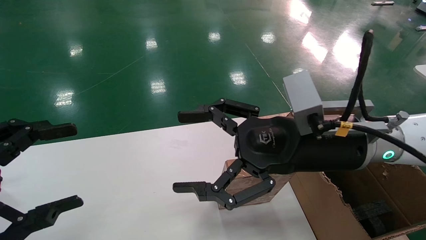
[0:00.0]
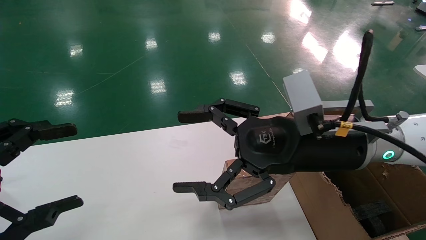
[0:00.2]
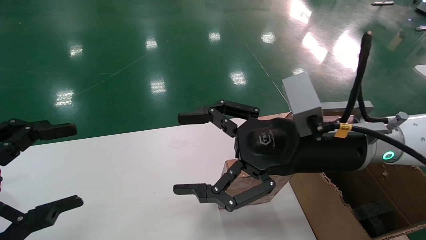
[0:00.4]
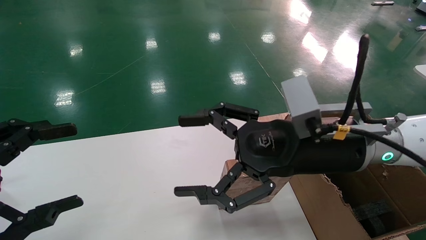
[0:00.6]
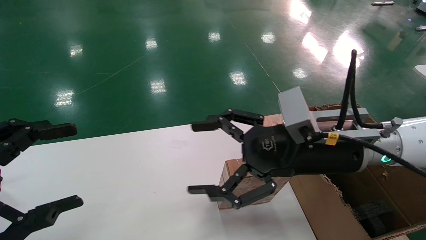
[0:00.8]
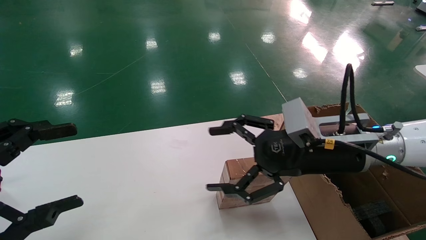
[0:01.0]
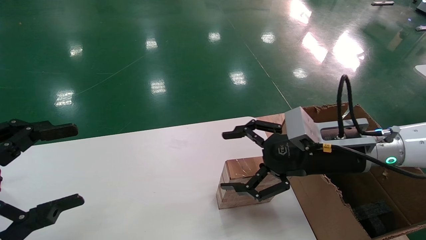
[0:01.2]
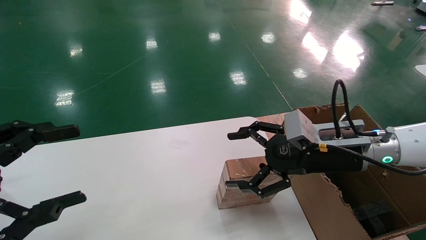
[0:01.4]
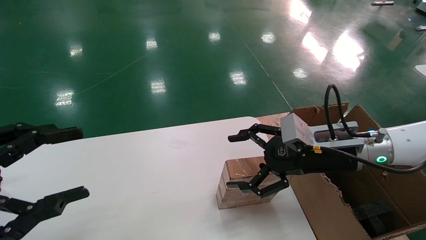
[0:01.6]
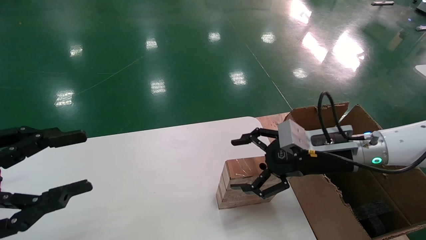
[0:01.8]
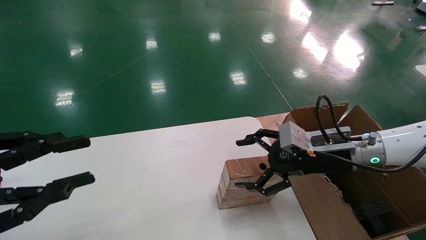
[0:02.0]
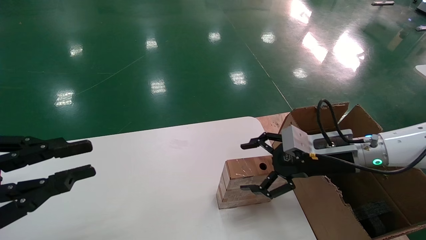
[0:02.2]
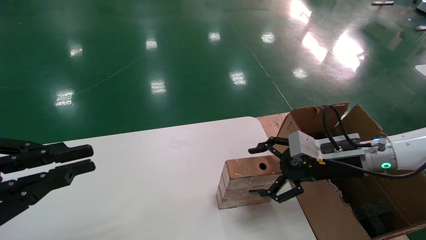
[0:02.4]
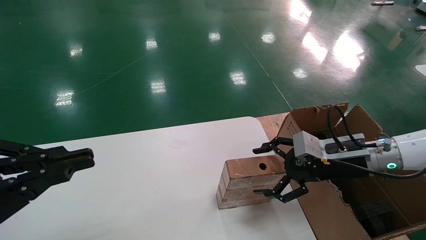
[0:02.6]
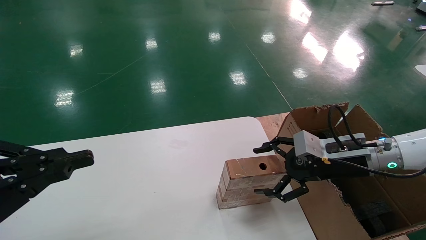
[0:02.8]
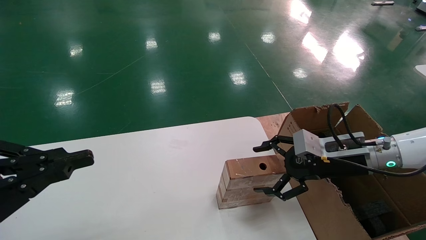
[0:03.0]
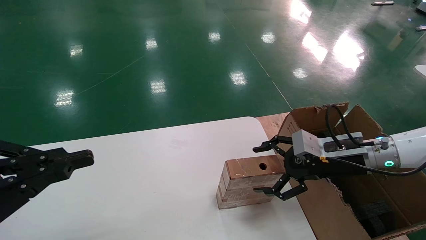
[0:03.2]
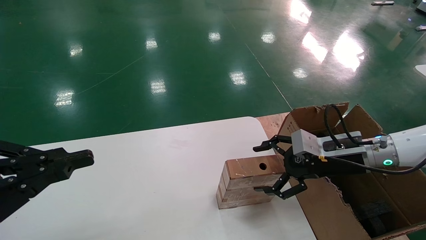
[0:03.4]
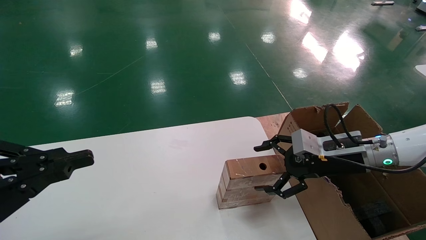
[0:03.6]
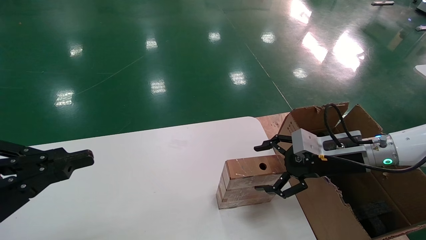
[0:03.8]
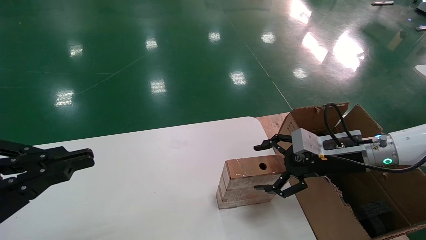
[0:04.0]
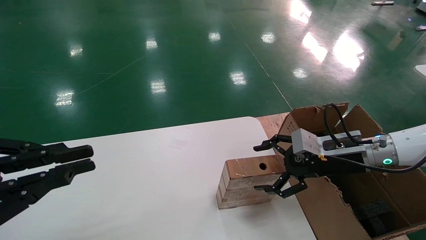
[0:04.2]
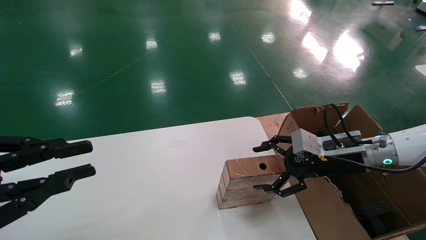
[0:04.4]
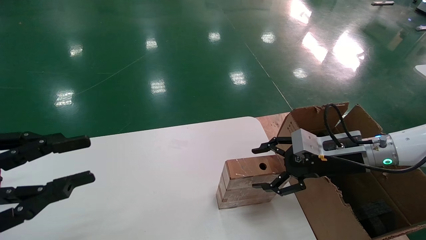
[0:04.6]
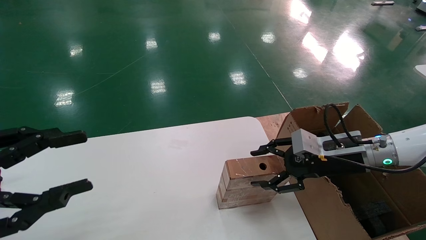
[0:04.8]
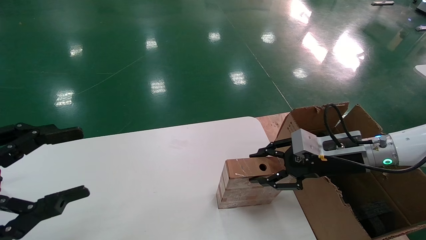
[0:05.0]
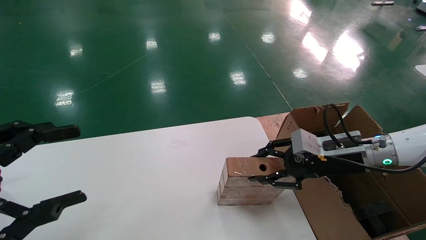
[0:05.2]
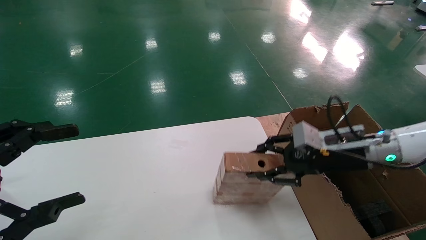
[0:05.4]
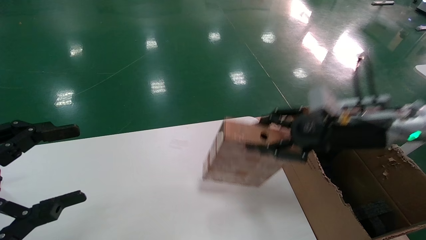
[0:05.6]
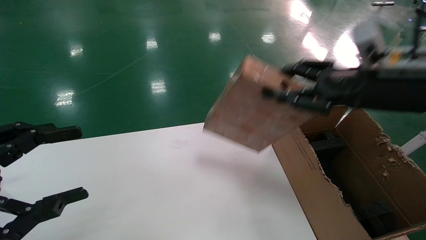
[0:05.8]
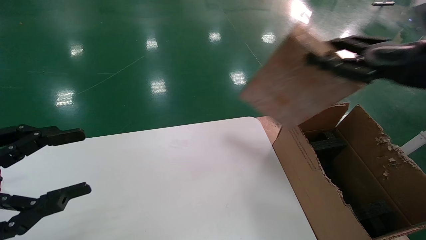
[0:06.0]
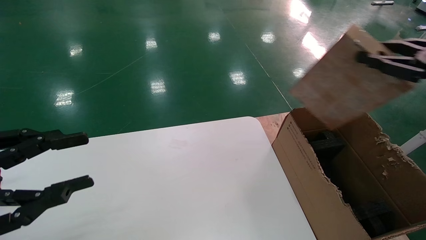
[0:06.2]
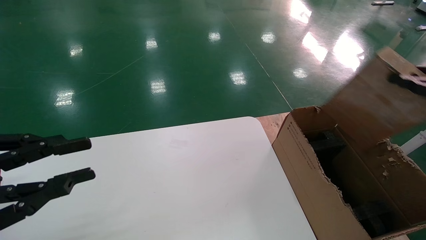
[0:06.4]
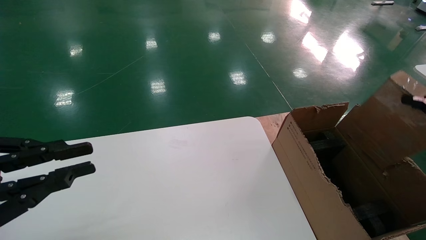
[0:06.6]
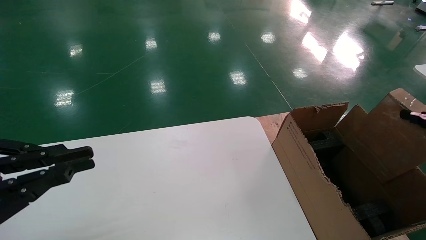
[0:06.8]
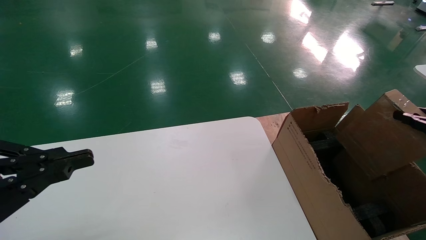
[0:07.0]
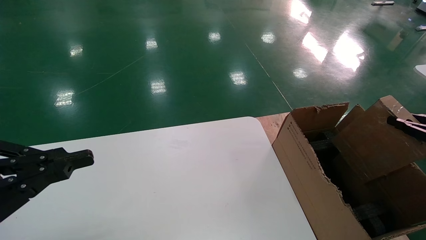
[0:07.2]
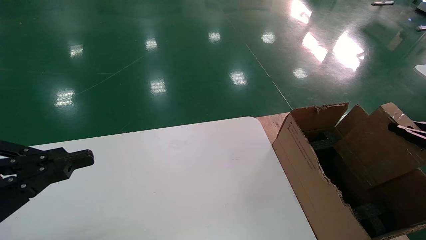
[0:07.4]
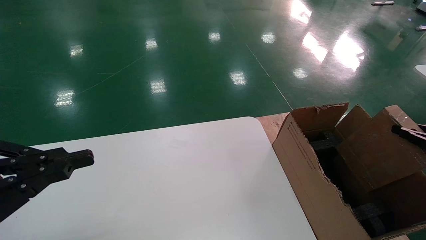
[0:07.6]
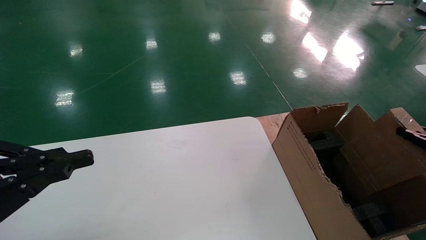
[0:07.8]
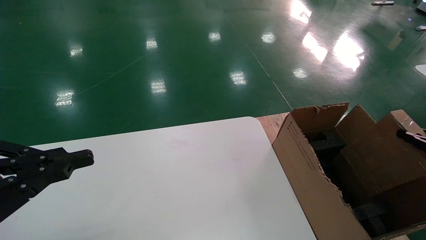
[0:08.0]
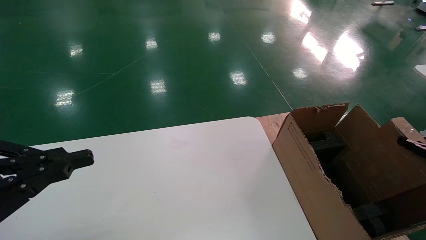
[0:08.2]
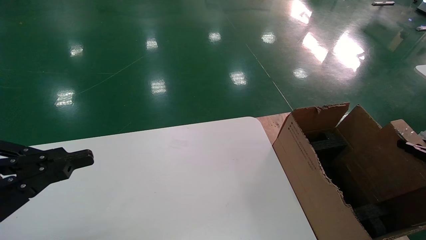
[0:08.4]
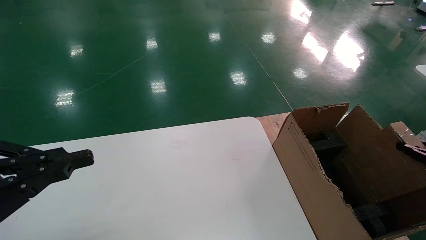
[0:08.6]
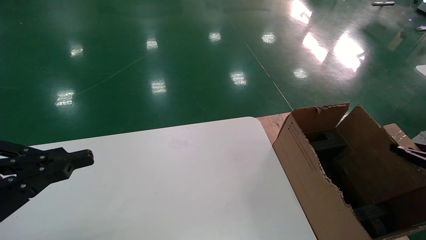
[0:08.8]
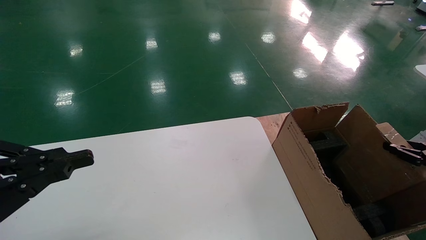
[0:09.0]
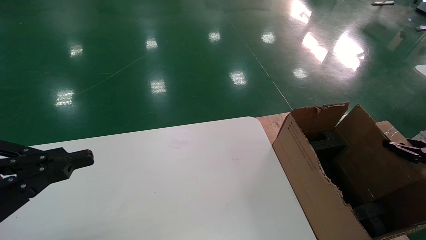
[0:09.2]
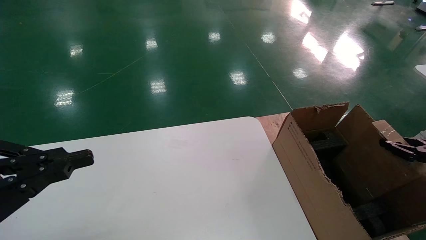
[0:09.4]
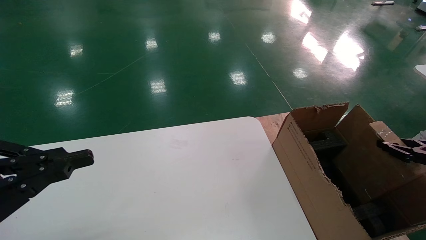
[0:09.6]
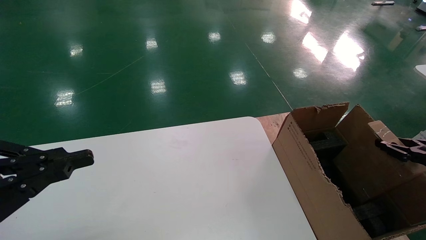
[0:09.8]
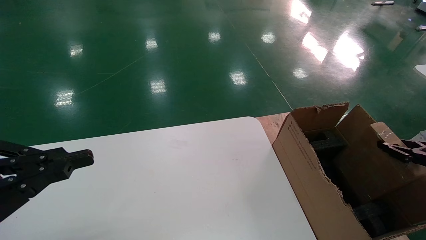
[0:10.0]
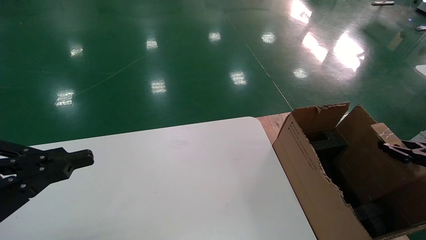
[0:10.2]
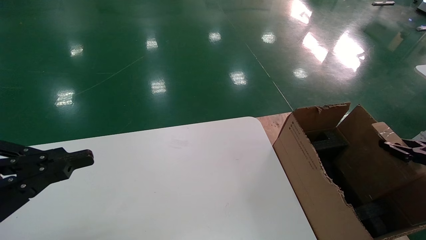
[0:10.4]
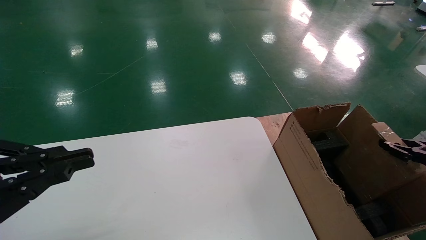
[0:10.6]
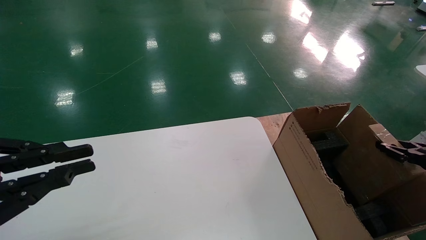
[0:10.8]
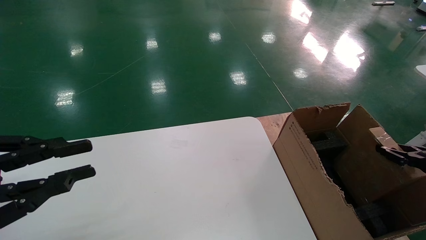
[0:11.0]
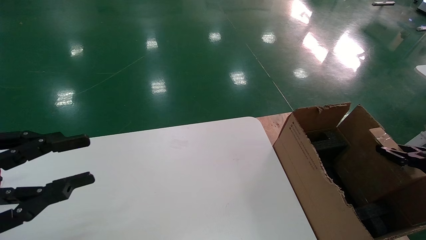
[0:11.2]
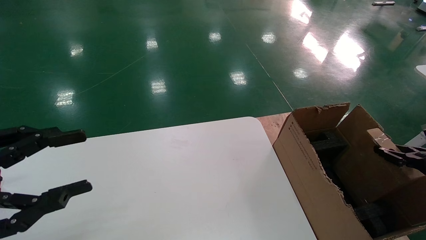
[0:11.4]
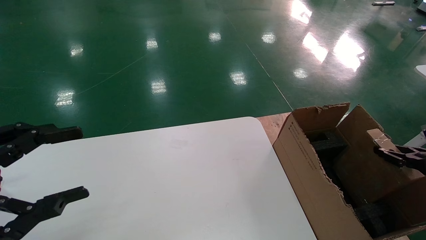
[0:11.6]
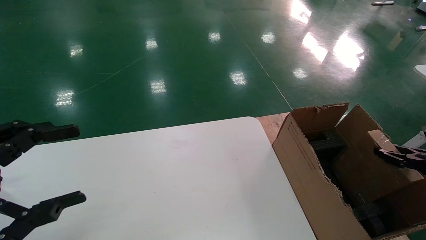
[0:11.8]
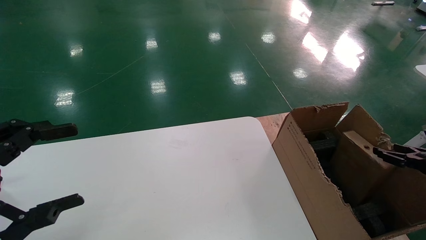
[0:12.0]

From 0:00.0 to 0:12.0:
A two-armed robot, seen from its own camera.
Task of the whole recording: put the box on the table into the big box.
Step, from 0:01.2 to 0:05.2: Pick up the mouse and the power cord paper box.
From 0:00.0 to 0:01.6: The right gripper moves to the right, downward and forward, some 10 cm.
From 0:01.6 to 0:03.0: The right gripper moves to the right, approximately 5 cm; the left gripper closes up.
From 0:03.0 to 0:04.4: The two grippers keep their place.
From 0:04.4 to 0:06.0: The left gripper opens its fingers, while the right gripper goes some 20 cm upward, to the right and backward, and closes its fingers.
From 0:06.0 to 0:07.6: The left gripper closes up; the right gripper shifts roughly 25 cm to the right and downward.
From 0:07.6 to 0:10.4: There are only small adjustments of the grippers.
From 0:10.4 to 0:12.0: The left gripper opens its fingers.

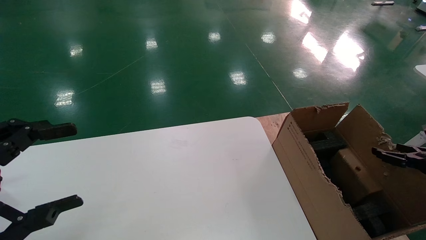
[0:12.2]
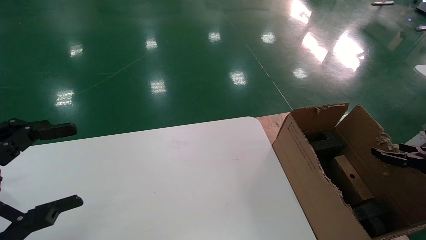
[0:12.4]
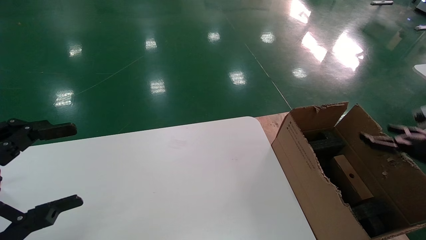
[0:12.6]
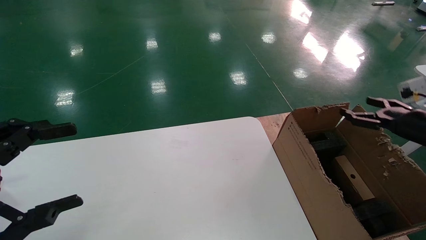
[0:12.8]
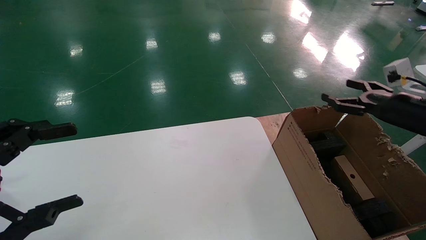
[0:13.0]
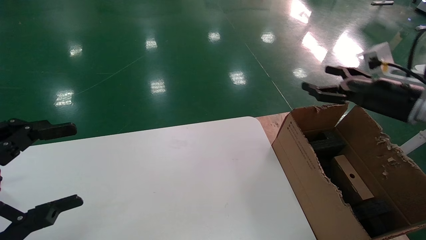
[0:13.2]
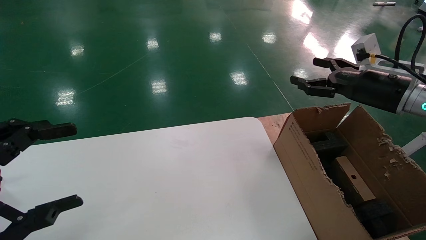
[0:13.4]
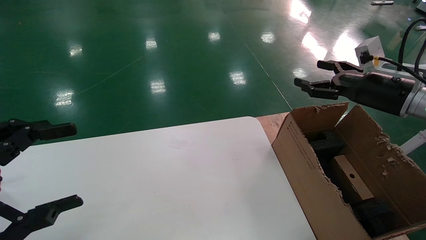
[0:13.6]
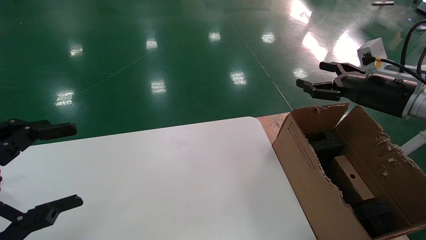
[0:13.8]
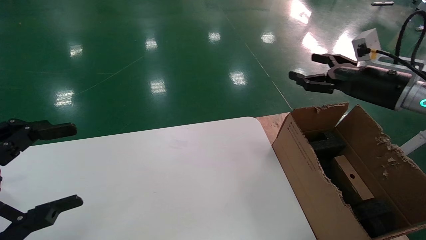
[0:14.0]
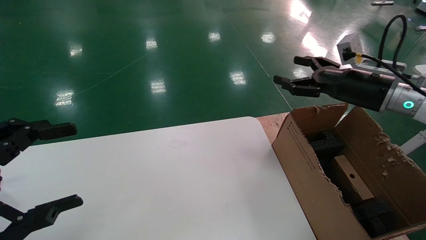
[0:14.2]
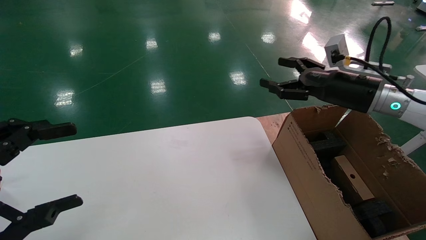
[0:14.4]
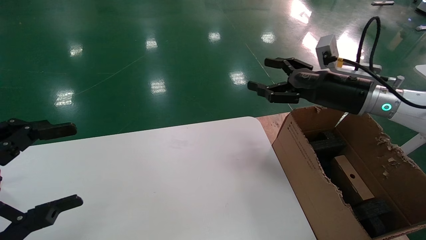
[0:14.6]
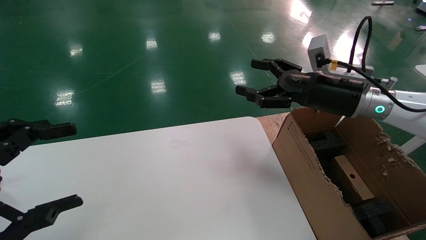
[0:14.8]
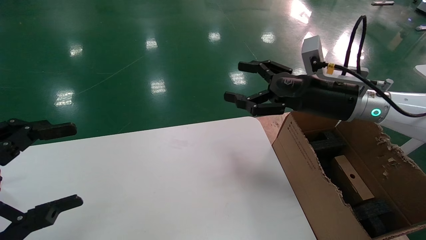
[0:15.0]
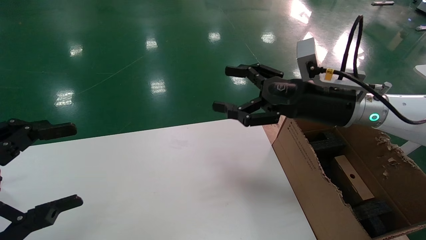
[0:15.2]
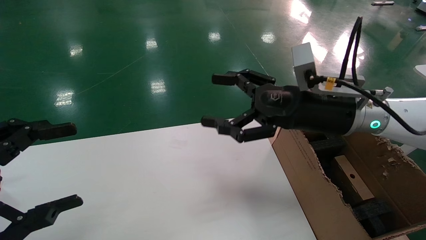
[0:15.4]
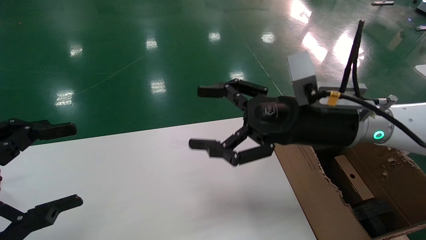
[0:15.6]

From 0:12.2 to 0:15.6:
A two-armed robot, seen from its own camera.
Task of the whole recording: put the box on the table into the big box.
From 0:12.2 to 0:13.8: The right gripper moves upward, to the left and forward, some 25 cm, and opens up.
From 0:13.8 to 0:15.6: The right gripper travels to the left by about 20 cm.
